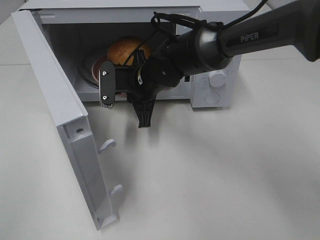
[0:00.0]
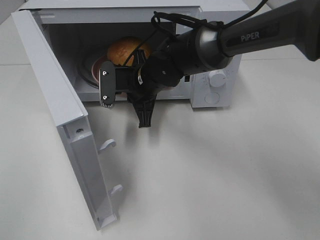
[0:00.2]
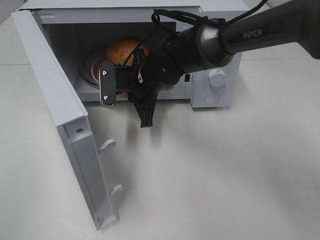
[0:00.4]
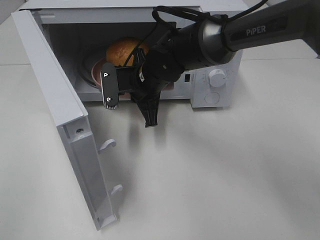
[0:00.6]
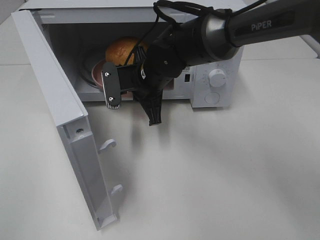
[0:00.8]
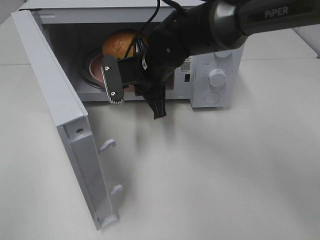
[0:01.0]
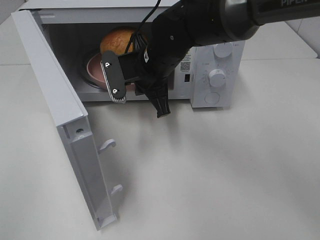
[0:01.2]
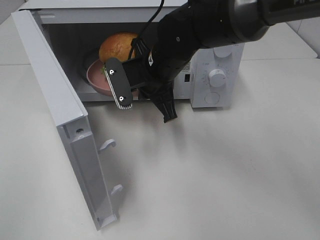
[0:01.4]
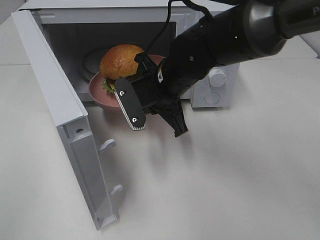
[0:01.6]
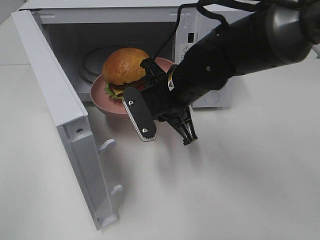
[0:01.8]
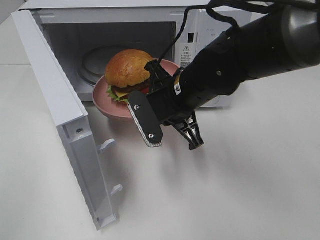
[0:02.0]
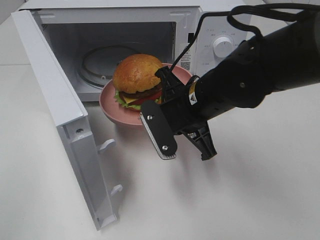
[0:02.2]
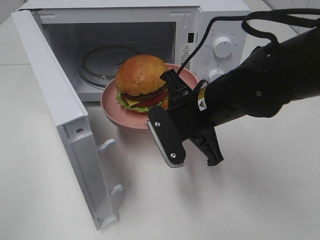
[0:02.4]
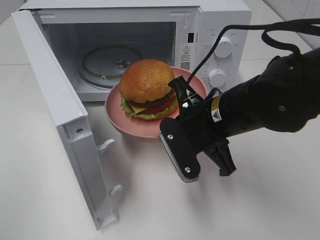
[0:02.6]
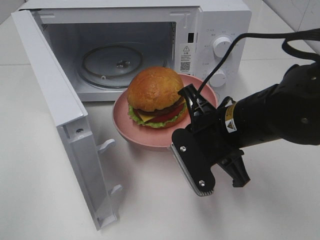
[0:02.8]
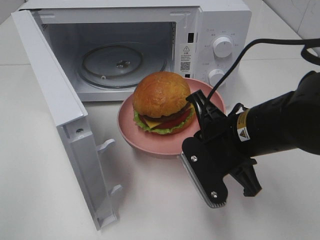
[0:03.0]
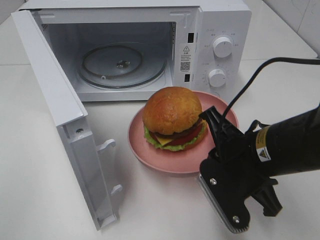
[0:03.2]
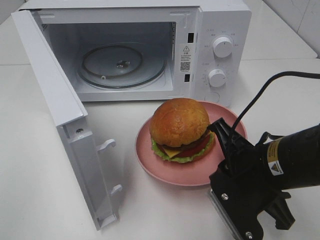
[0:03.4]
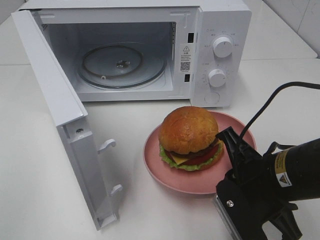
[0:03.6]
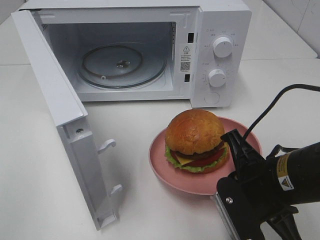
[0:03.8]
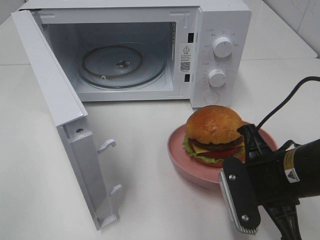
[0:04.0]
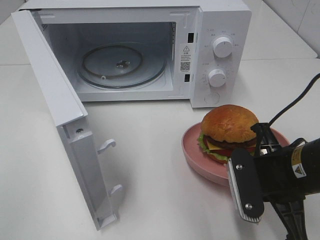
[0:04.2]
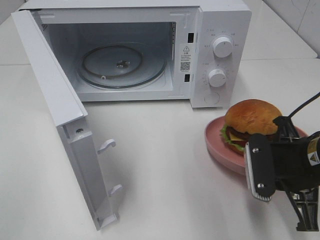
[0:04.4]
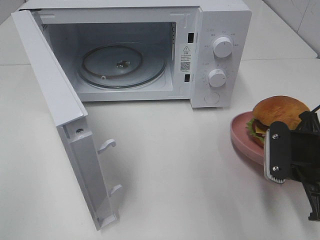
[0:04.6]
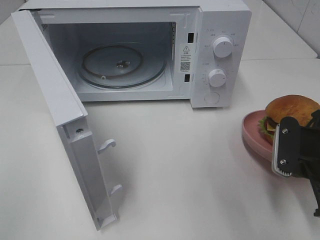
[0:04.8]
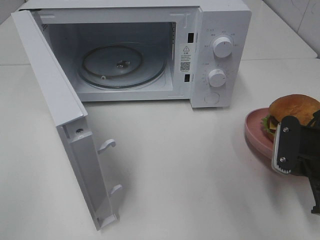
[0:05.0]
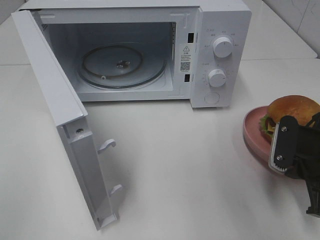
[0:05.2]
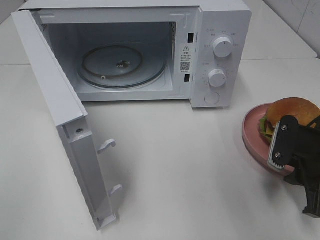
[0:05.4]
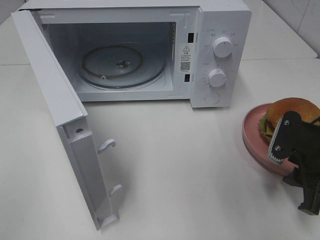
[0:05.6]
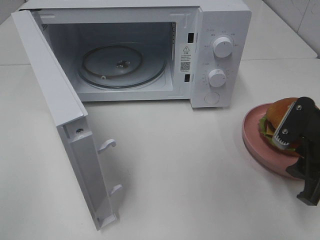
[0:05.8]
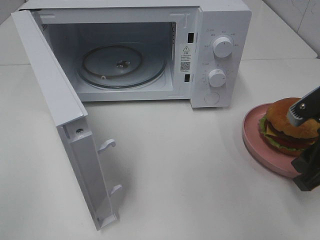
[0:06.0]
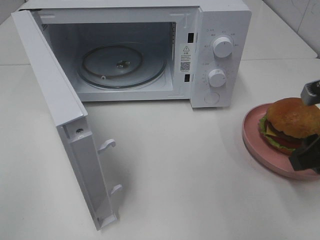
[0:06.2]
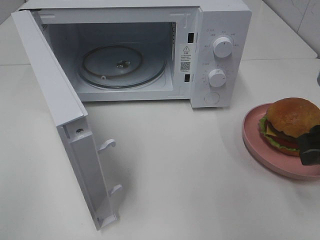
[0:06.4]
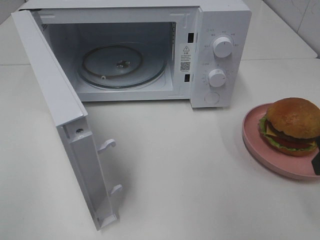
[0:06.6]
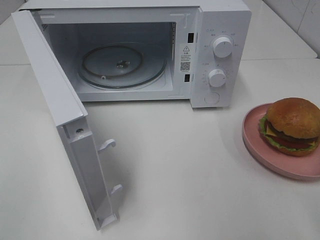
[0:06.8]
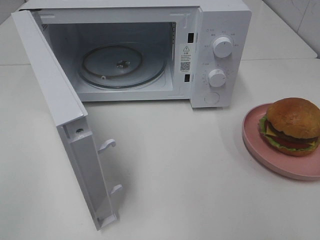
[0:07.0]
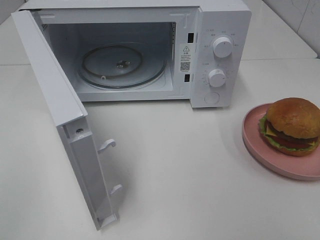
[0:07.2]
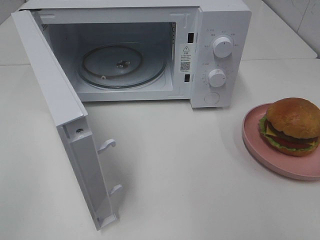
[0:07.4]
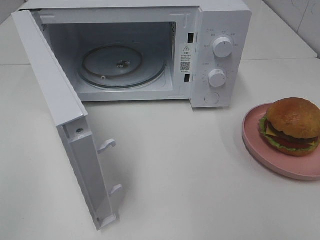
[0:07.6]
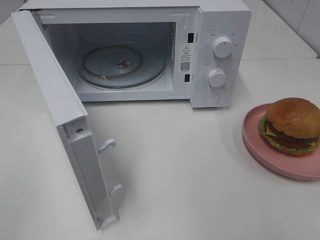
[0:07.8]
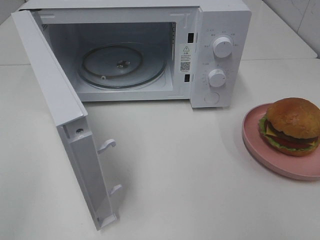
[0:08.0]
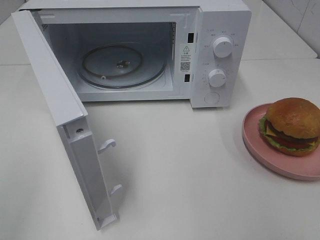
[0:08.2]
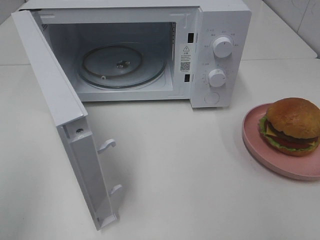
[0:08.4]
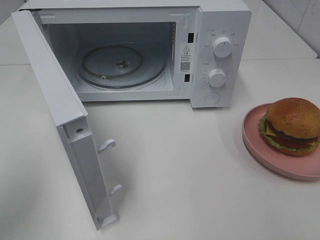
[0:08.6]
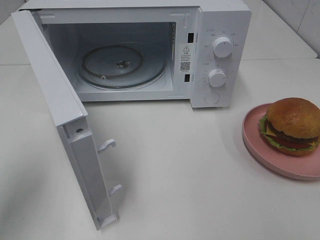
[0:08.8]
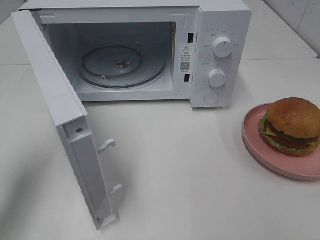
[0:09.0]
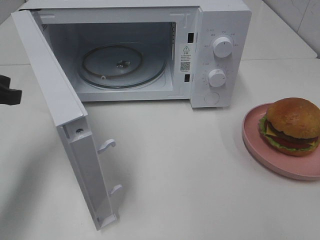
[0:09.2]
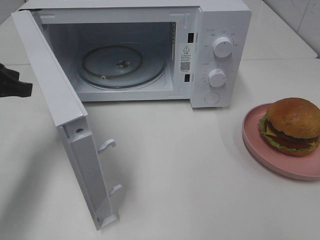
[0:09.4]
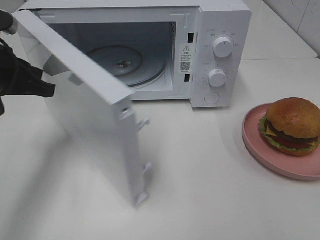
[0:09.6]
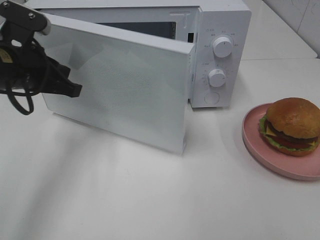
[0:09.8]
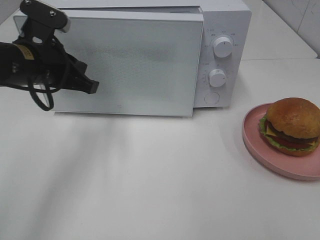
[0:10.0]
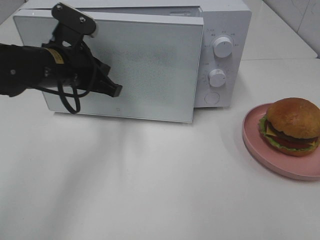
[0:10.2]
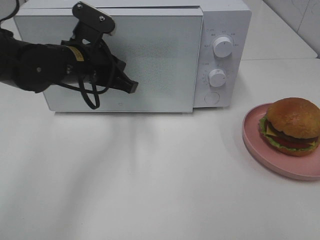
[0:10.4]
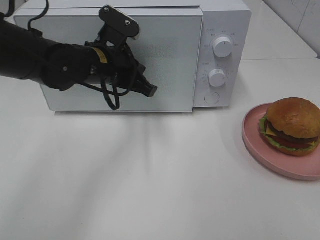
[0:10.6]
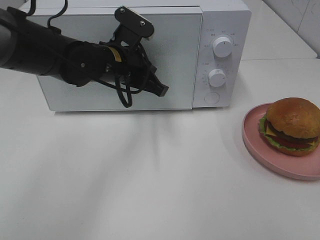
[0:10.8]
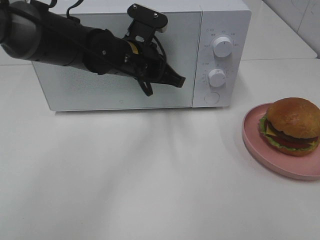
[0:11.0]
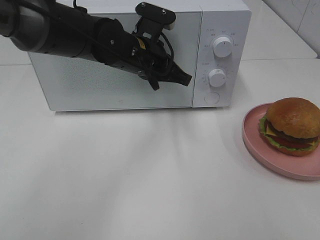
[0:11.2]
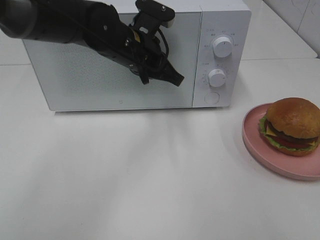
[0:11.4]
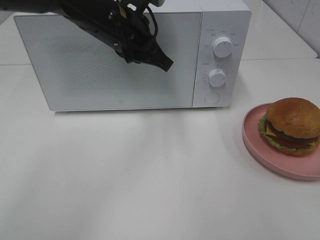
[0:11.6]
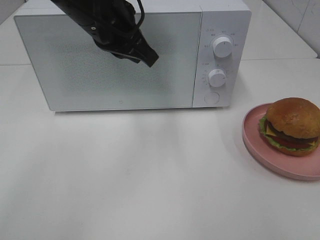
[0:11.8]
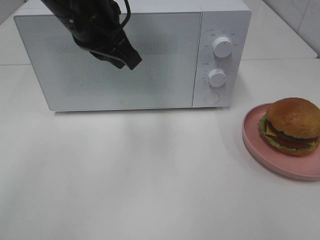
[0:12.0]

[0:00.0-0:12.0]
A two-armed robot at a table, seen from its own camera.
Task of the whole recording: Heat the burger.
Step, 0:00.0 to 0:05.2: Right hand: place the plate on the table.
Step, 0:05.4 to 0:11.0: Left hand: close the microwave door.
0:00.0 to 0:01.6: The right gripper shifts roughly 5 cm backward.
0:01.6 to 0:03.0: The right gripper moves backward and to the right, approximately 15 cm.
0:03.0 to 0:04.4: The right gripper heads to the right, covering about 10 cm.
0:04.4 to 0:06.0: The right gripper heads to the right, covering approximately 5 cm, and opens its fingers.
0:06.0 to 0:07.6: The right gripper shifts roughly 25 cm backward and upward.
0:07.6 to 0:09.0: The left gripper moves forward, some 20 cm.
0:09.0 to 0:10.4: The left gripper is displaced to the right and forward by some 20 cm.
0:10.4 to 0:12.0: The left gripper is displaced upward by some 10 cm.

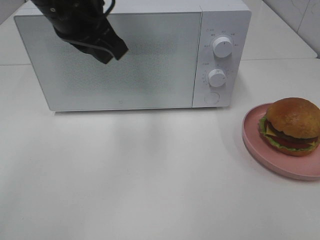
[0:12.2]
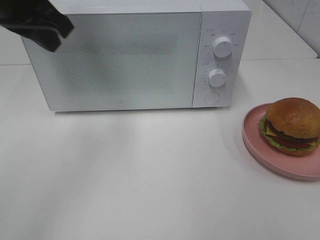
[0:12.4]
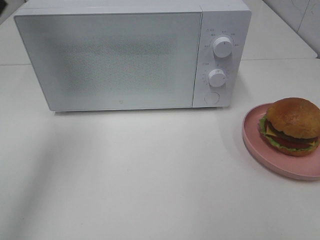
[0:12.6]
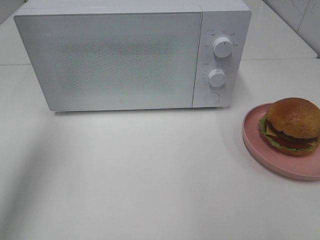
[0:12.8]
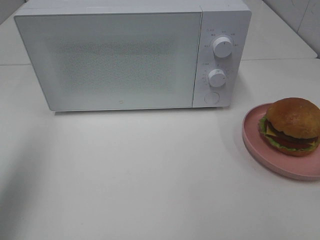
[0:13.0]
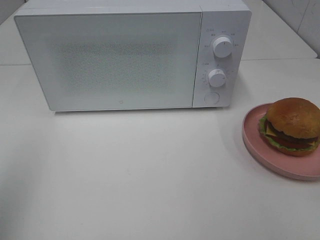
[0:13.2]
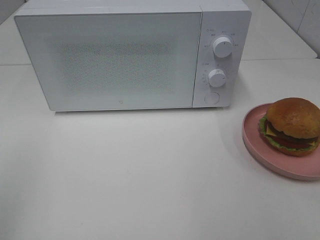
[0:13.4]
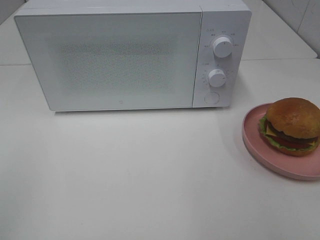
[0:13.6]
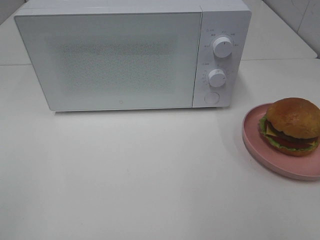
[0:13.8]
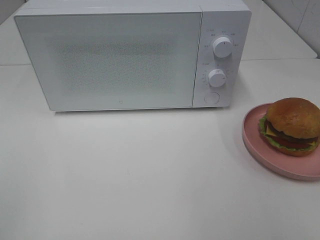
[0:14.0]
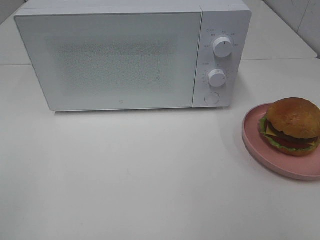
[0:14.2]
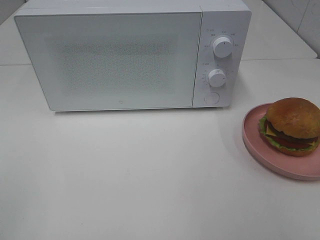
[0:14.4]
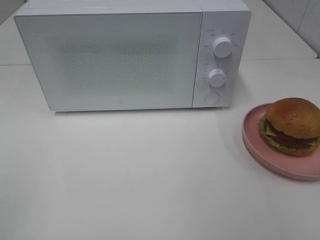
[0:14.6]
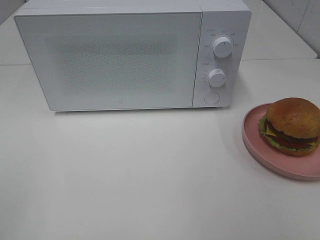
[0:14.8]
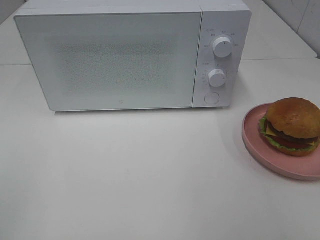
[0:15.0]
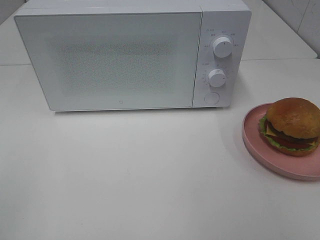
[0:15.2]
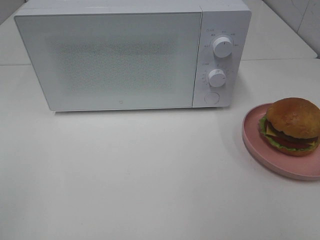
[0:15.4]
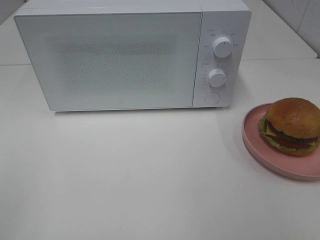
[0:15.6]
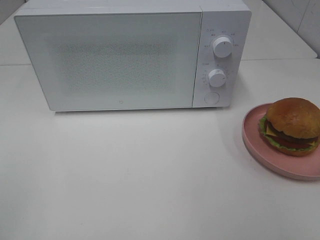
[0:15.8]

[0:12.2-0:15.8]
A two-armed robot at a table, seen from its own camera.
Task of the whole recording: Heat the burger.
0:12.2 to 0:14.0: The left gripper shifts approximately 40 cm backward and to the left.

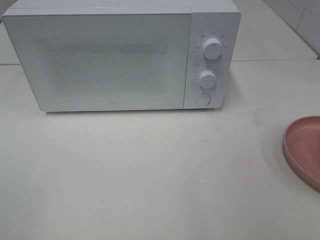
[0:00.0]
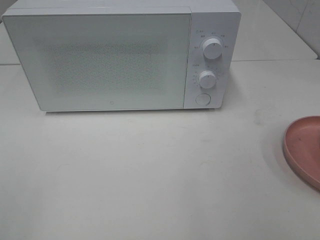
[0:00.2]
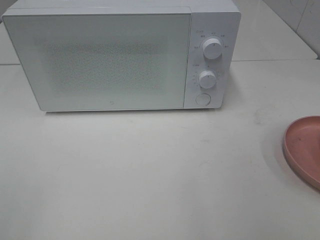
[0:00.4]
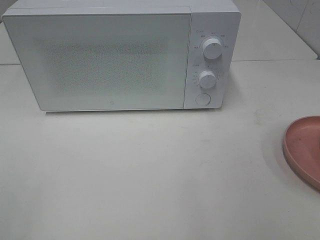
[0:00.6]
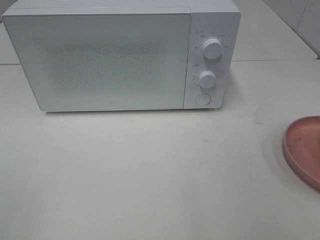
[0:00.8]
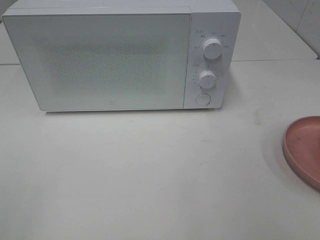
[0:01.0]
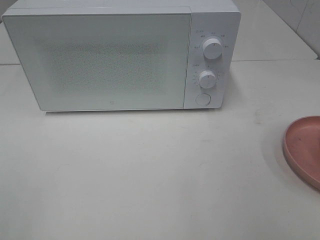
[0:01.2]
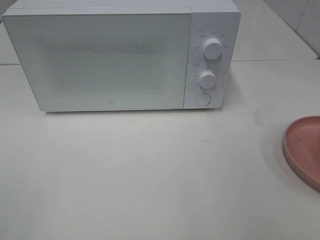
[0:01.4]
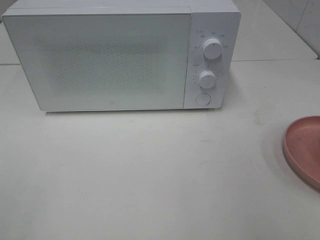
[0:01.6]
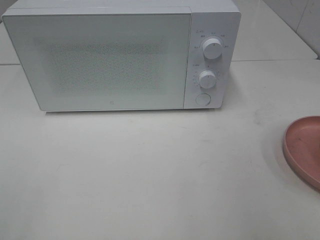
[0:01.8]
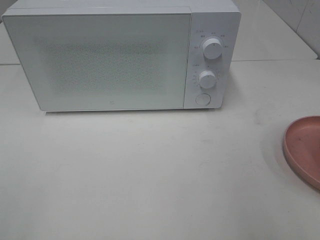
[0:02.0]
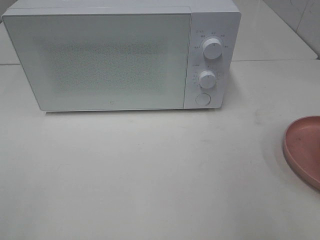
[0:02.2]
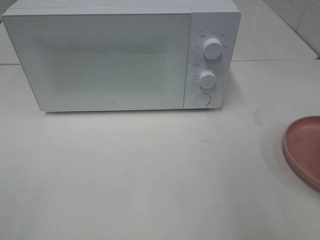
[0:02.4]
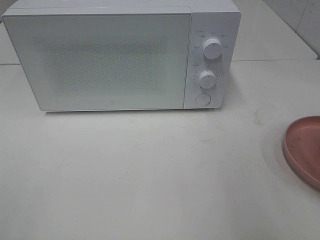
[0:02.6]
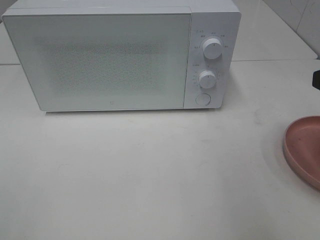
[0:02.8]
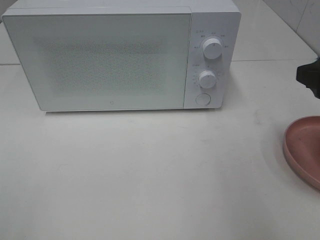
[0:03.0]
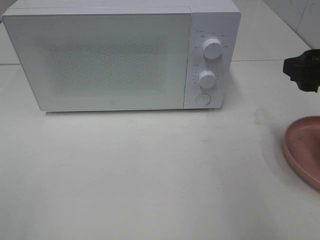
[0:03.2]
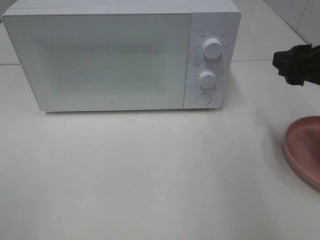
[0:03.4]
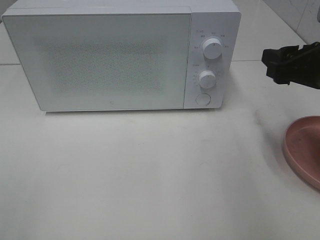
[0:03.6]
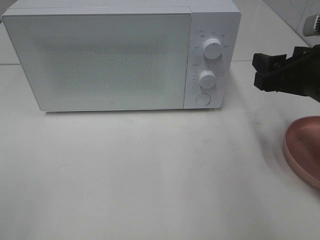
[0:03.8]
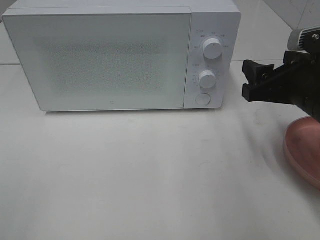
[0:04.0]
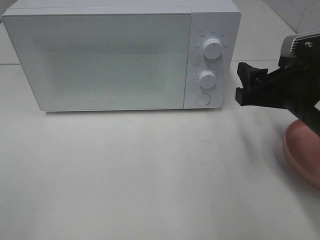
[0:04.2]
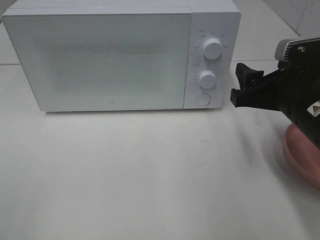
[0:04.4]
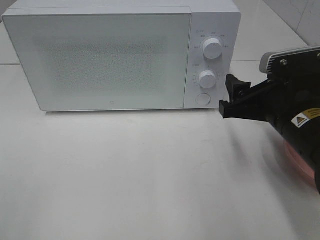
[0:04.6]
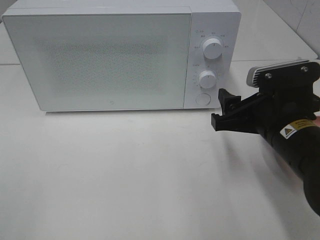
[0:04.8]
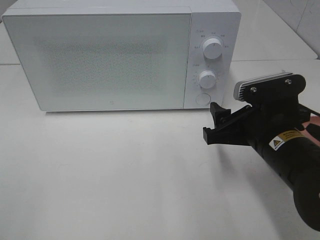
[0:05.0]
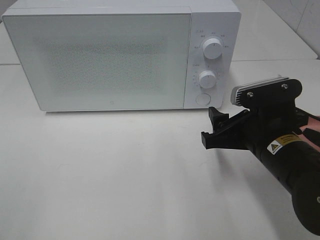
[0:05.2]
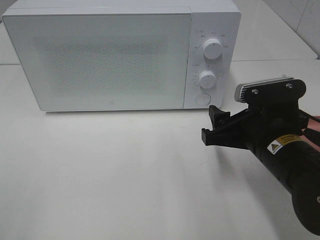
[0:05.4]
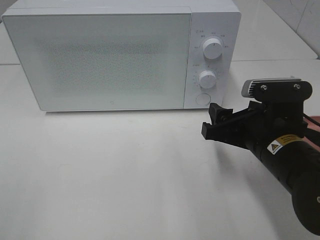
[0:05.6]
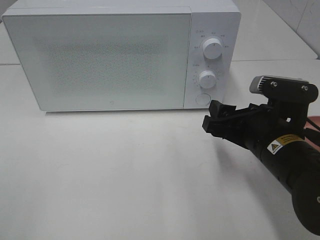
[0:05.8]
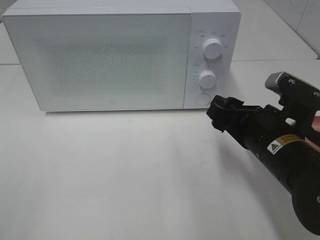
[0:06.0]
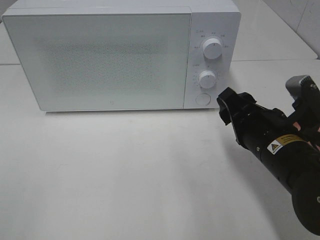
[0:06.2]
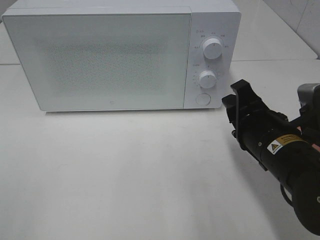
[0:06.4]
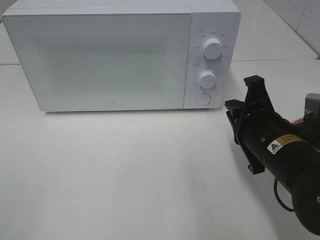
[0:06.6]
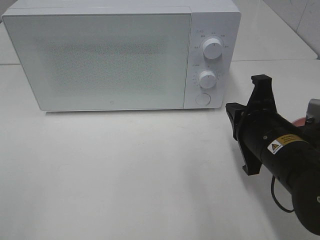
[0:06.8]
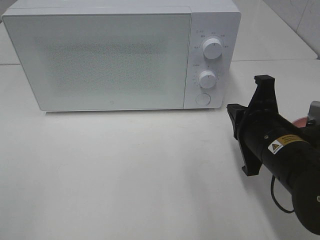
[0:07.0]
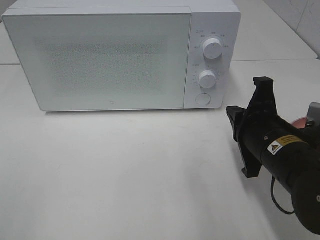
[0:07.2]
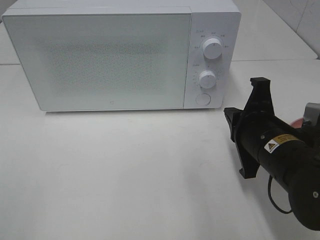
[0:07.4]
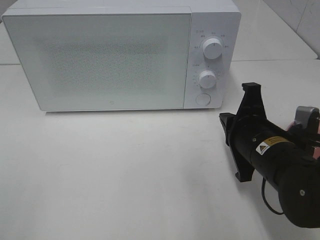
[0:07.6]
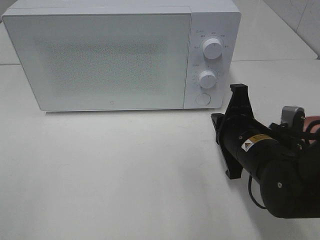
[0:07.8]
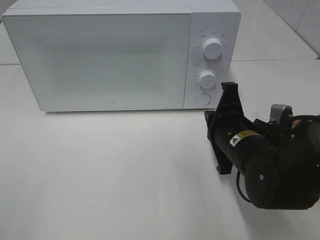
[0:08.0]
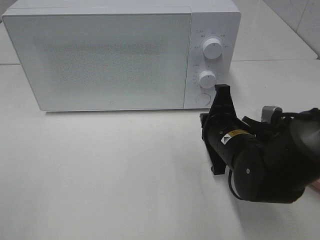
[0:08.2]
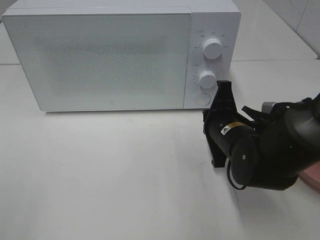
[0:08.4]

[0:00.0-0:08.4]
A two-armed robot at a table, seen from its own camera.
Task of the whole recording: Heat the burger.
0:02.8 to 0:04.2: The right gripper is displaced downward, forward and to the left by roughly 10 cm.
0:04.2 to 0:05.6: The right gripper heads downward, covering approximately 5 cm.
0:05.6 to 0:07.0: The right gripper closes its fingers.
0:07.0 to 0:08.4: The right gripper travels forward by about 5 cm.
